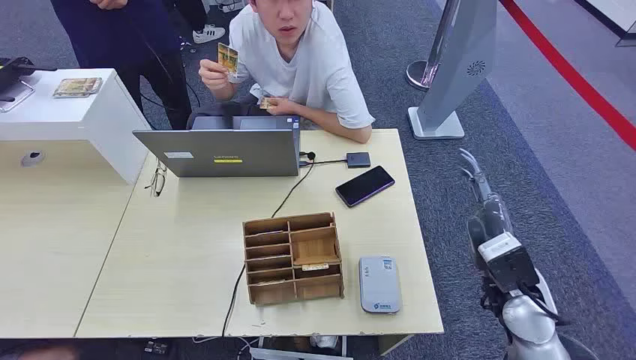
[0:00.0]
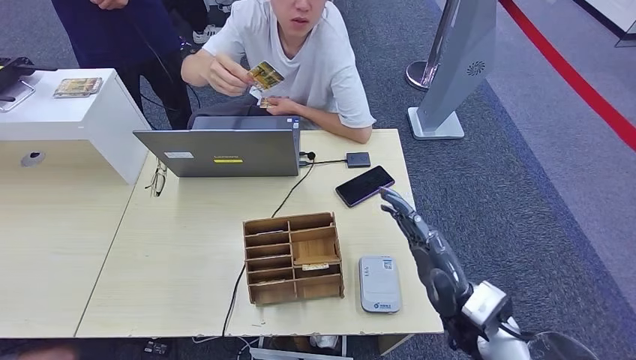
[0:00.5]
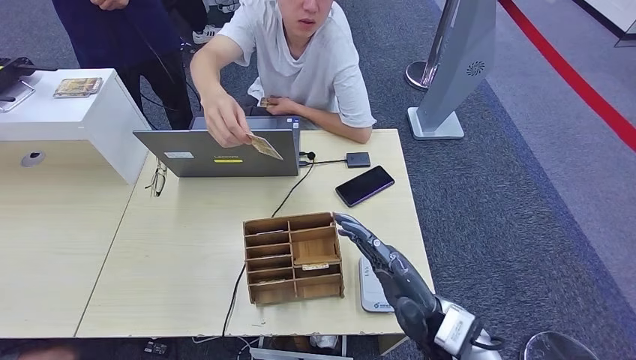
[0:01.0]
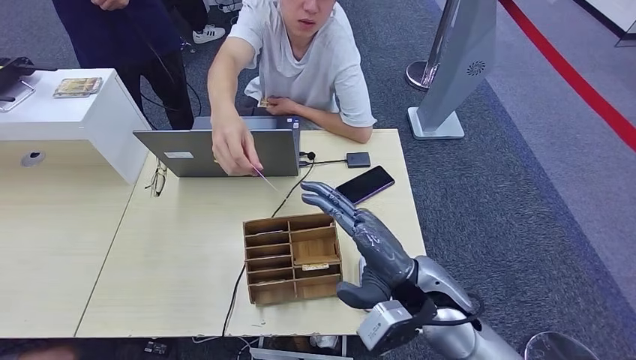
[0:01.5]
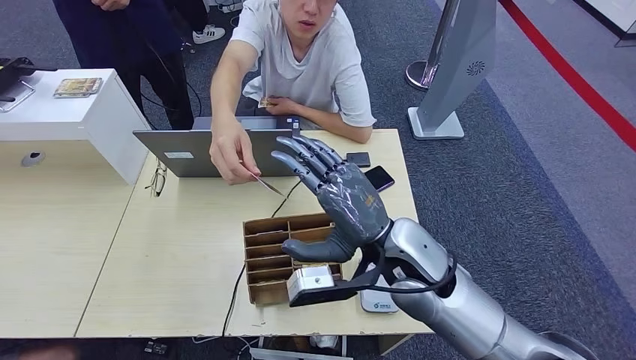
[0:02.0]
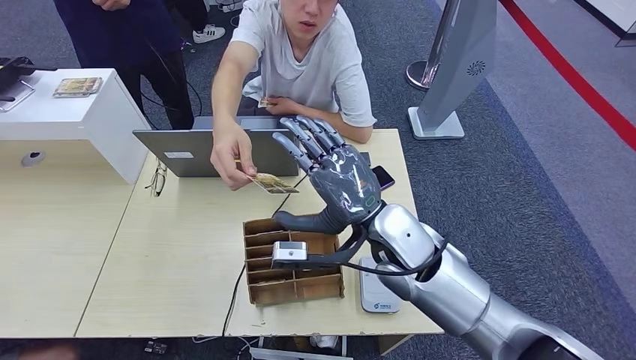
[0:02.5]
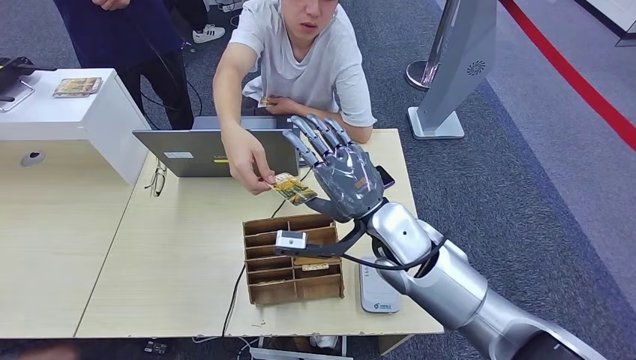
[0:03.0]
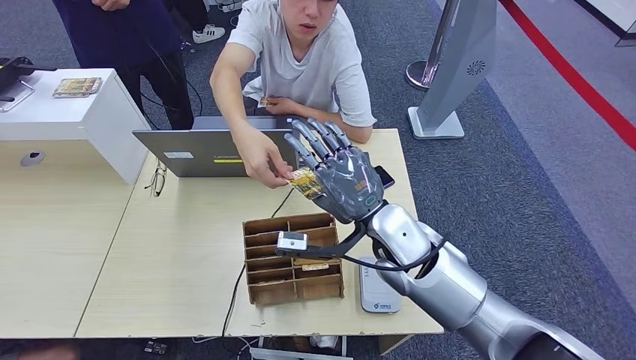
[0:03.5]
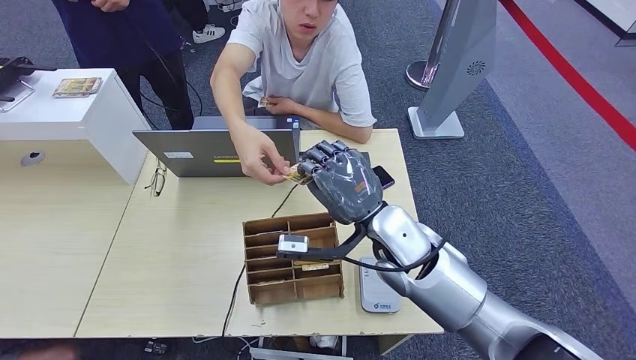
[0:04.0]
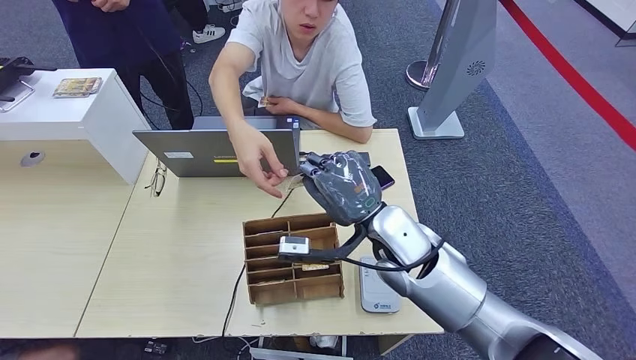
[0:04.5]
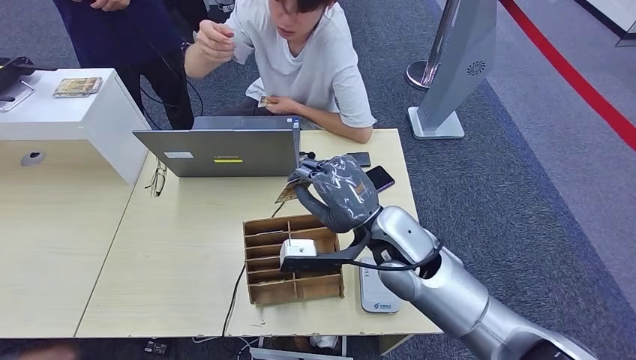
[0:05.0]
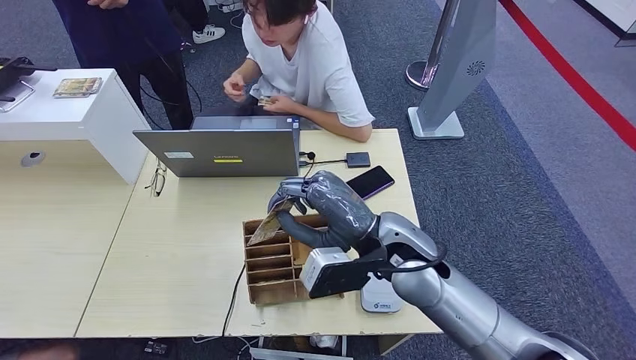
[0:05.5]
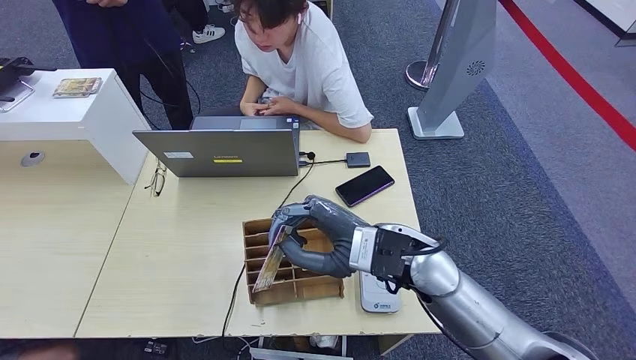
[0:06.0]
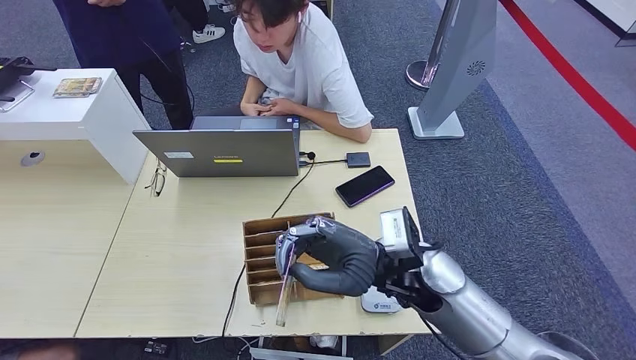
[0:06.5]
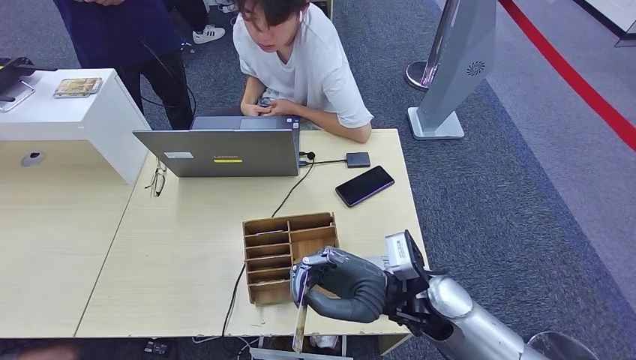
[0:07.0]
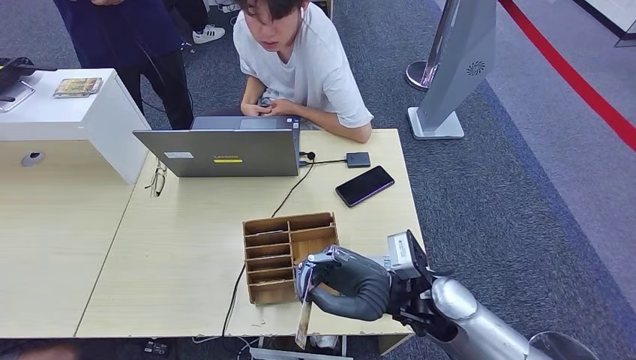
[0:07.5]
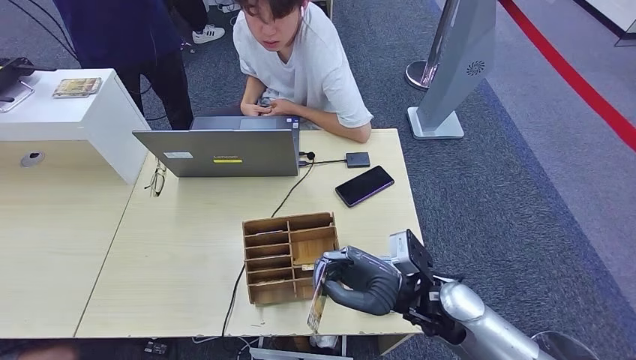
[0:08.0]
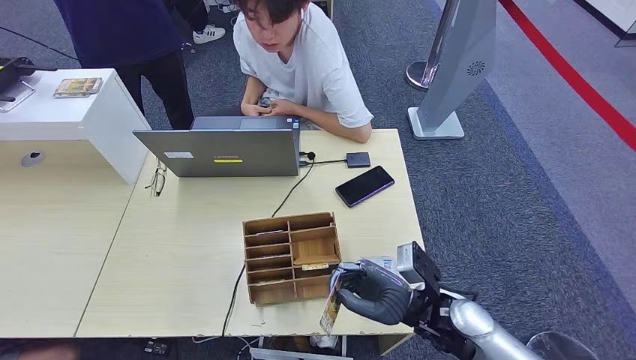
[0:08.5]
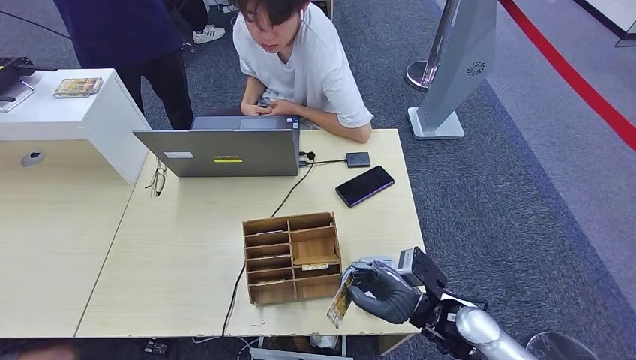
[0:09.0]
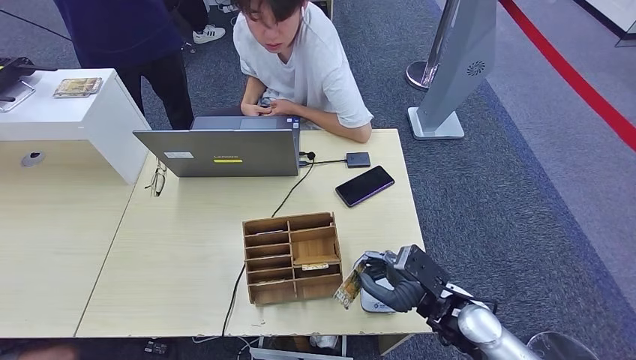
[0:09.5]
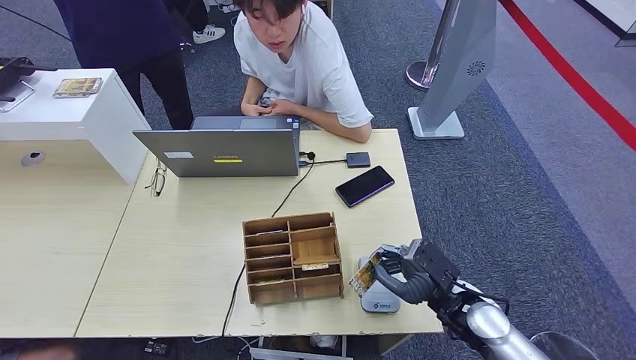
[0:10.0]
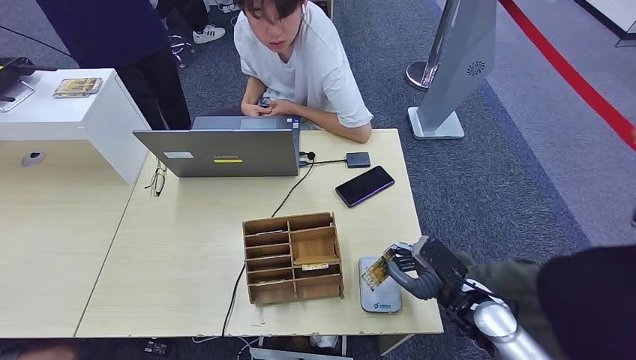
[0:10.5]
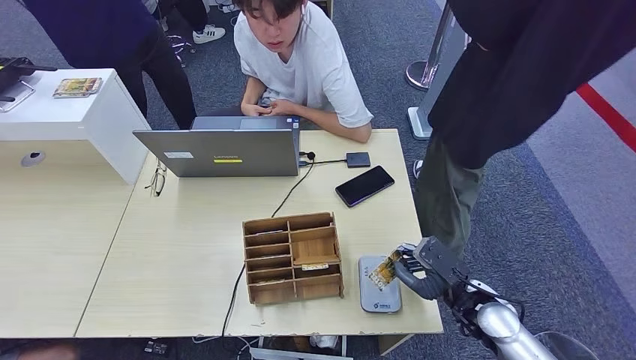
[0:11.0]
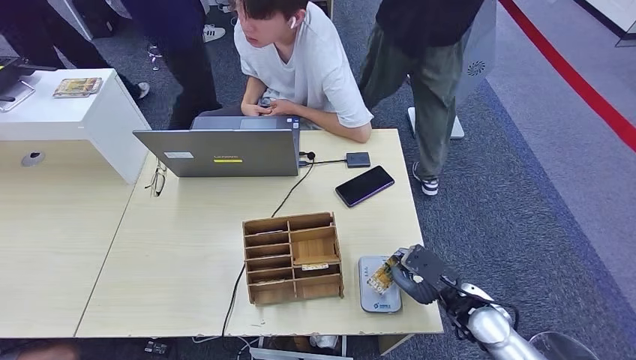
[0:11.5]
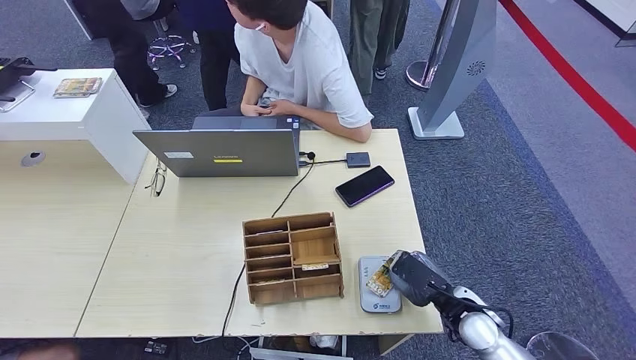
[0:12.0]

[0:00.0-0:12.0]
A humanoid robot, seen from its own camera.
Step, 0:00.0 to 0:05.0: Take the ID card from the person's hand.
0:06.0 to 0:08.0: The right hand is displaced downward and to the right by roughly 10 cm.
0:08.0 to 0:10.0: The right hand goes roughly 10 cm to the right and downward.

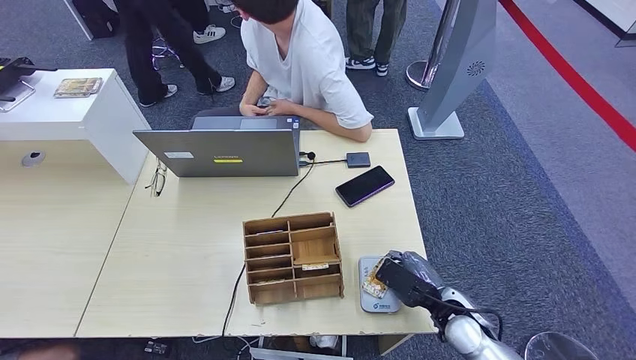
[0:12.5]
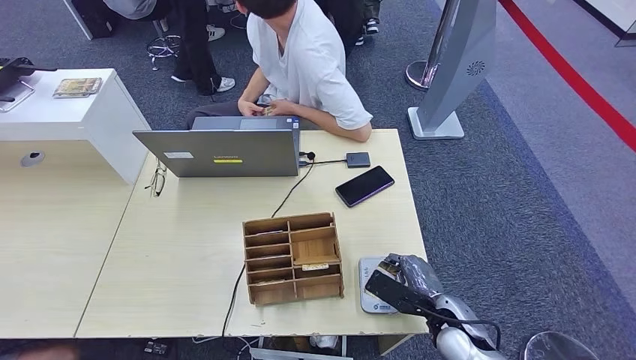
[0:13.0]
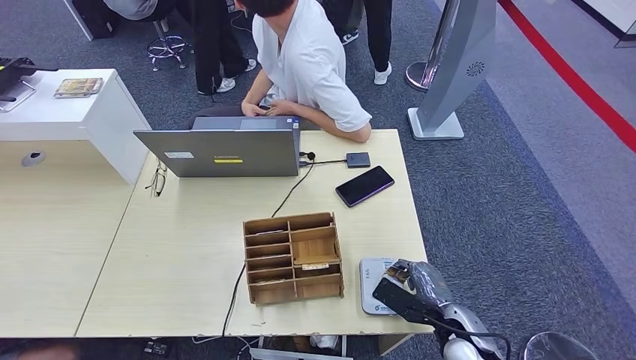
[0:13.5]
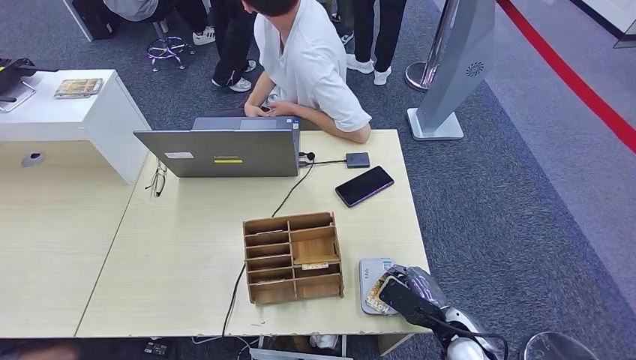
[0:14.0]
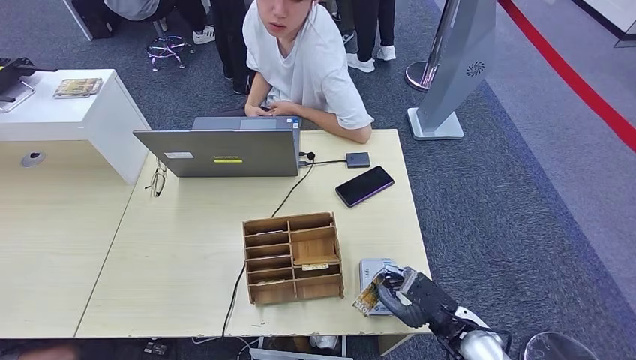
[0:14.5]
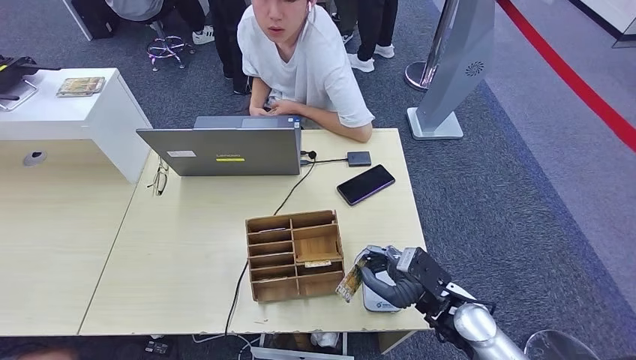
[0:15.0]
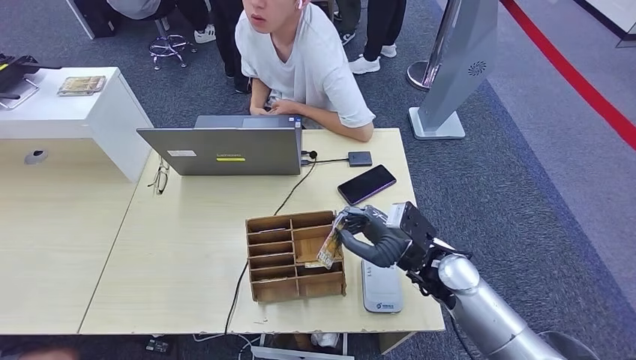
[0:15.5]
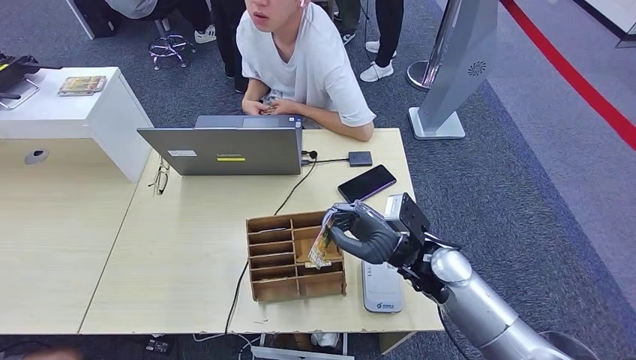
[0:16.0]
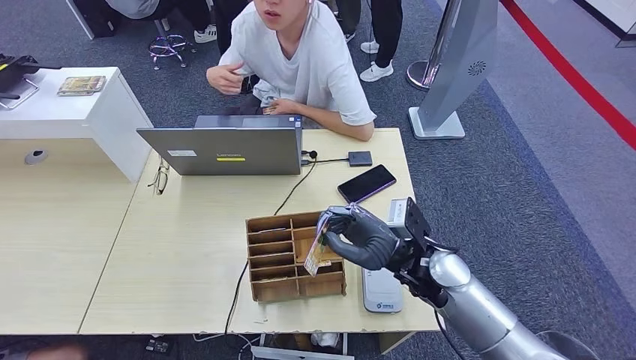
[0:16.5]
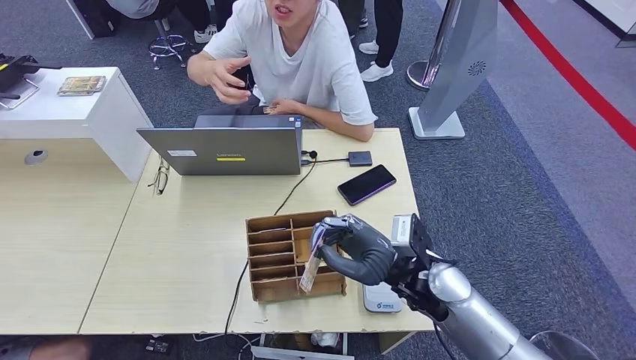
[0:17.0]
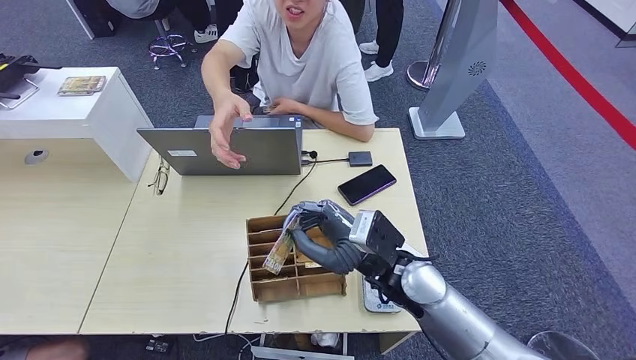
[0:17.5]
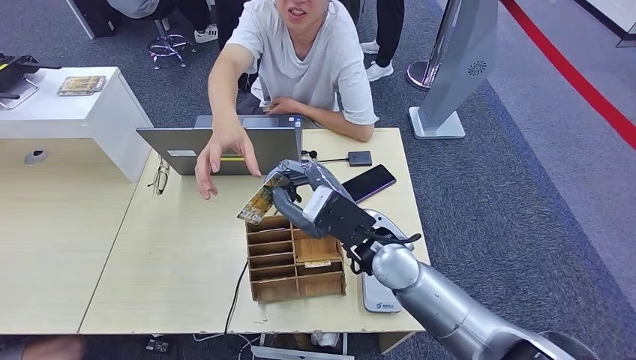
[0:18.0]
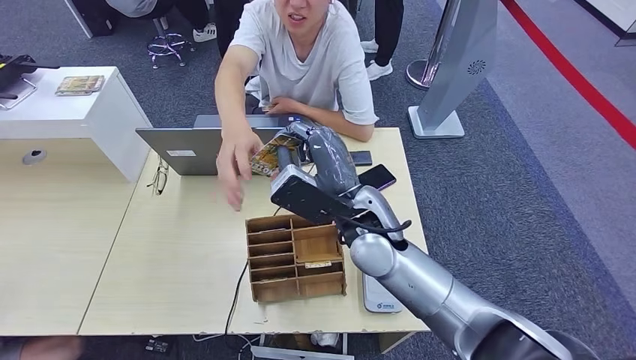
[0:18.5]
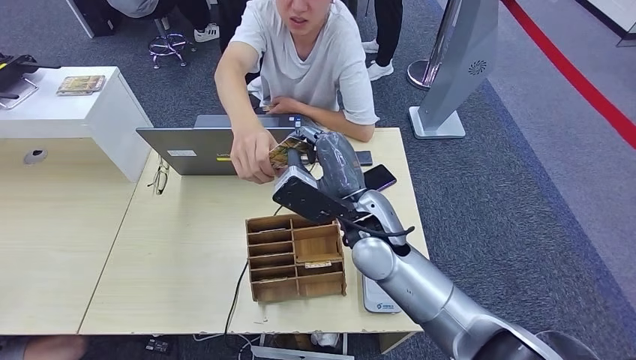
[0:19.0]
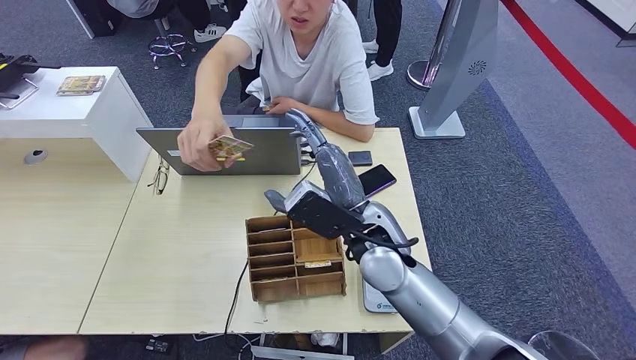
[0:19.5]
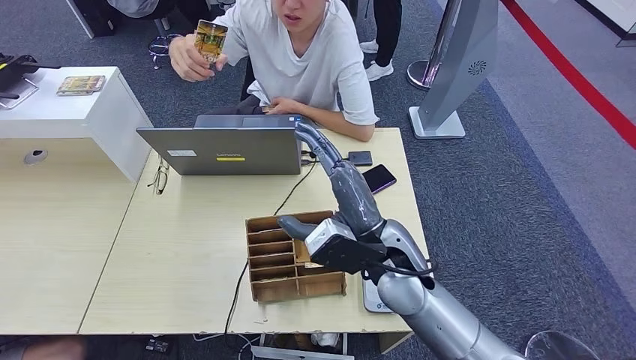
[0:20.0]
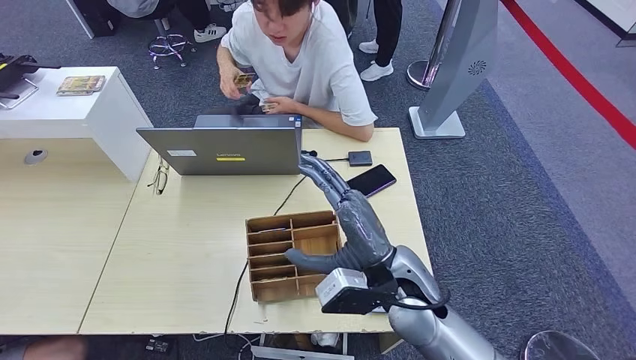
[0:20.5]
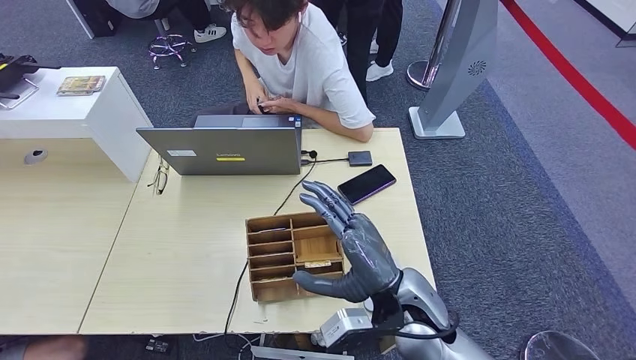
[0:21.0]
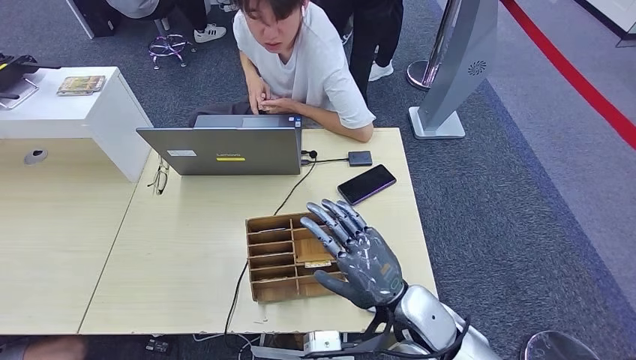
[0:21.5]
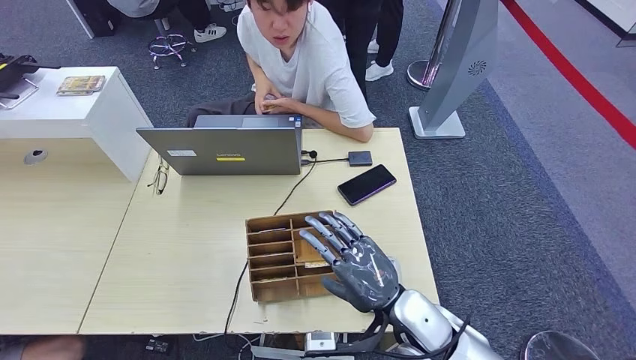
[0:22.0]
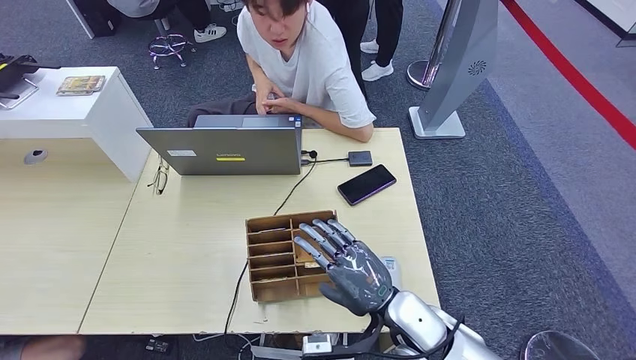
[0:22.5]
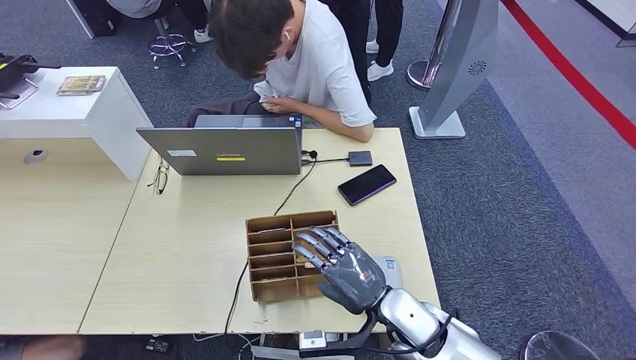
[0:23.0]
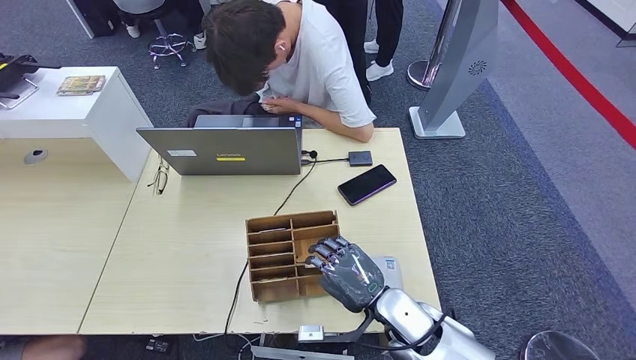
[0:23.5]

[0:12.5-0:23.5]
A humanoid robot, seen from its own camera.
Step, 0:12.5 to 0:15.5: Place the ID card on the card reader.
Step, 0:16.0 to 0:20.0: Hand the ID card to the person.
0:12.5 to 0:14.5: The left hand moves backward and to the left, some 20 cm.
0:14.5 to 0:16.0: The left hand is displaced forward and to the right by some 20 cm, while the right hand shifts approximately 15 cm forward, upward and to the left.
0:16.0 to 0:18.0: The right hand moves to the left and upward, some 15 cm; the left hand travels backward by some 5 cm.
0:20.0 to 0:21.5: The right hand travels backward and downward by roughly 10 cm.
0:21.5 to 0:23.5: The right hand travels downward by some 5 cm.
